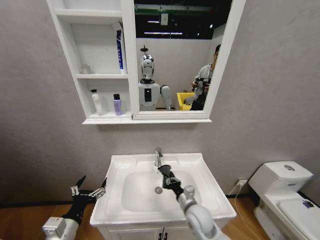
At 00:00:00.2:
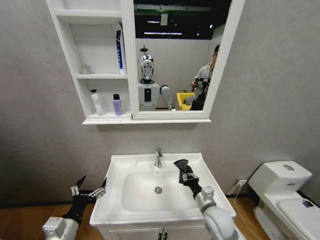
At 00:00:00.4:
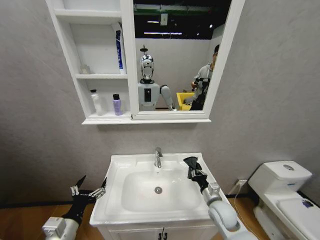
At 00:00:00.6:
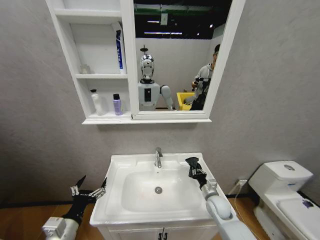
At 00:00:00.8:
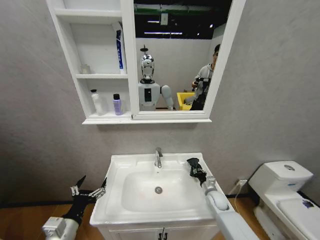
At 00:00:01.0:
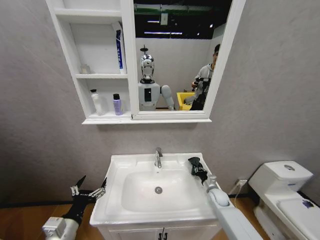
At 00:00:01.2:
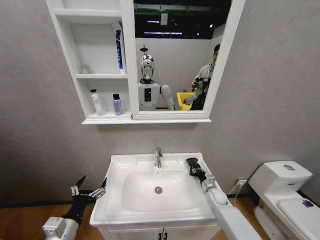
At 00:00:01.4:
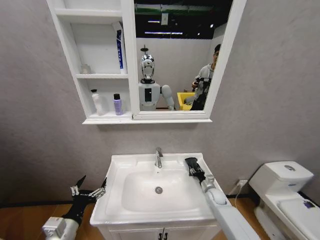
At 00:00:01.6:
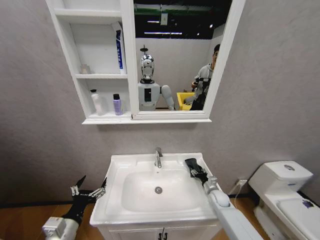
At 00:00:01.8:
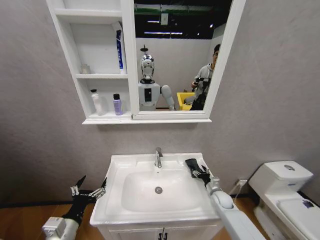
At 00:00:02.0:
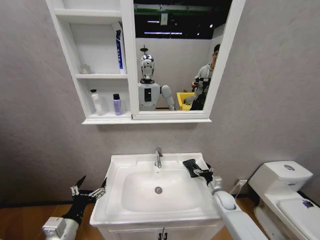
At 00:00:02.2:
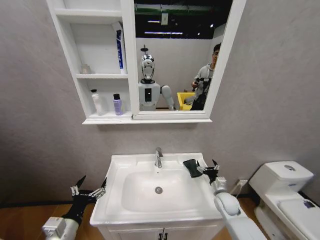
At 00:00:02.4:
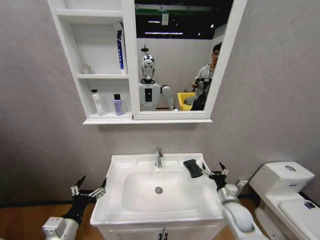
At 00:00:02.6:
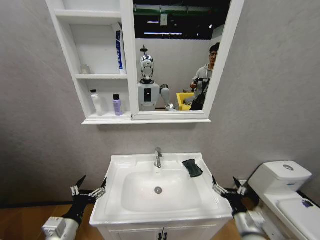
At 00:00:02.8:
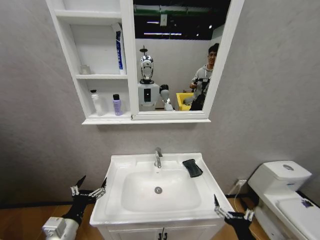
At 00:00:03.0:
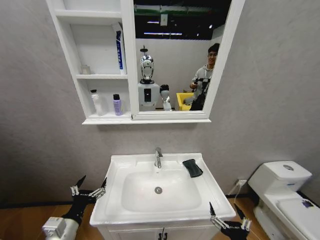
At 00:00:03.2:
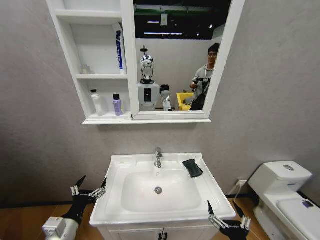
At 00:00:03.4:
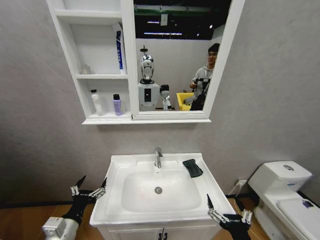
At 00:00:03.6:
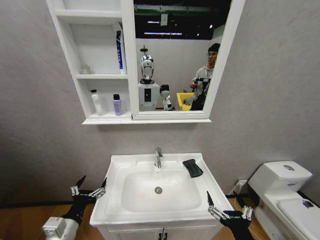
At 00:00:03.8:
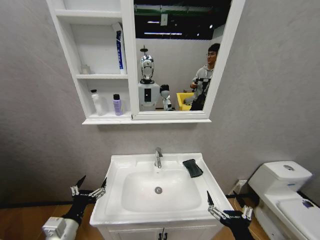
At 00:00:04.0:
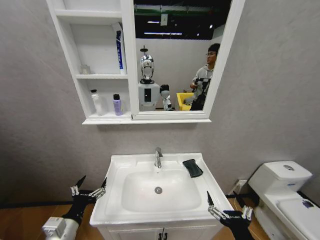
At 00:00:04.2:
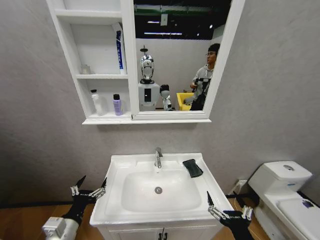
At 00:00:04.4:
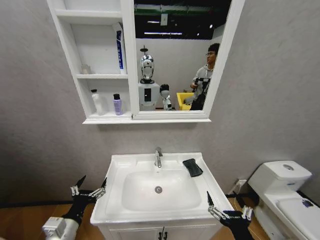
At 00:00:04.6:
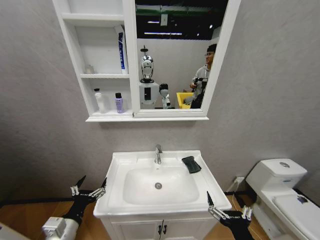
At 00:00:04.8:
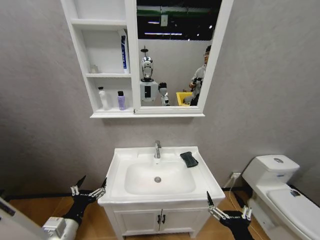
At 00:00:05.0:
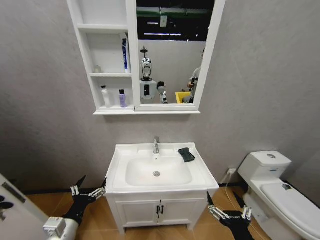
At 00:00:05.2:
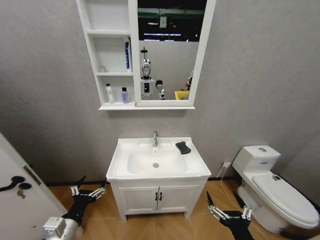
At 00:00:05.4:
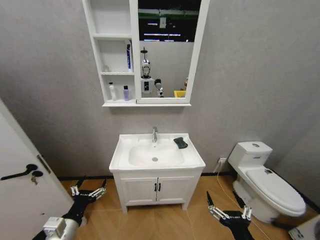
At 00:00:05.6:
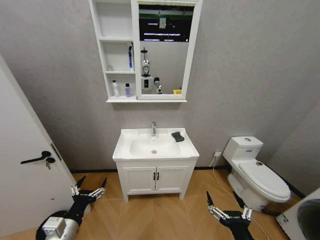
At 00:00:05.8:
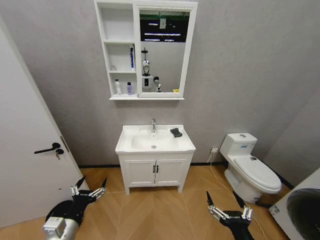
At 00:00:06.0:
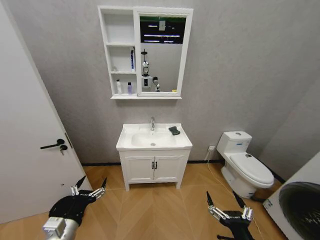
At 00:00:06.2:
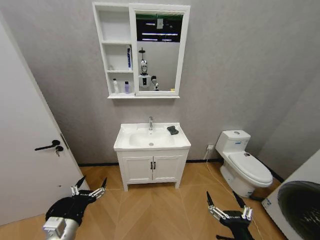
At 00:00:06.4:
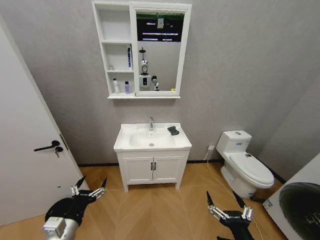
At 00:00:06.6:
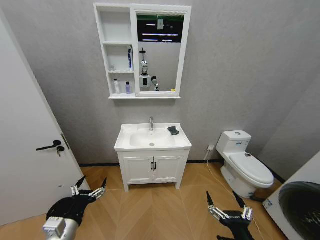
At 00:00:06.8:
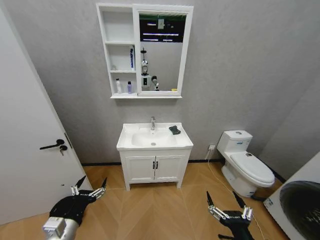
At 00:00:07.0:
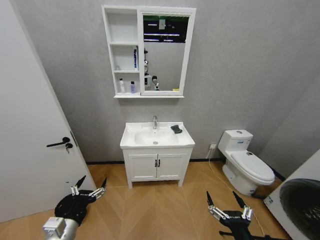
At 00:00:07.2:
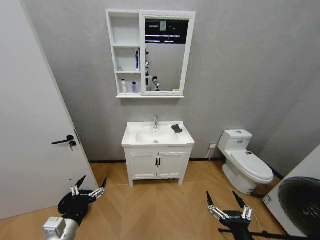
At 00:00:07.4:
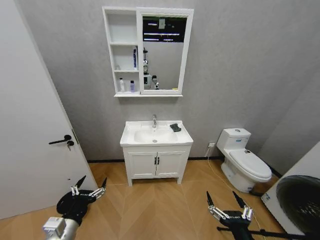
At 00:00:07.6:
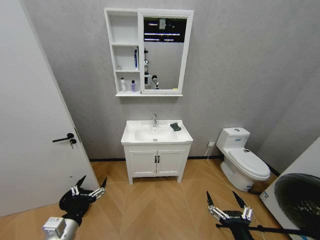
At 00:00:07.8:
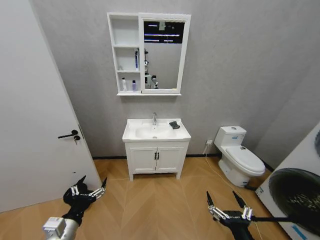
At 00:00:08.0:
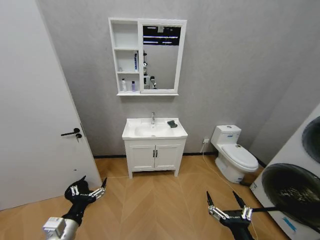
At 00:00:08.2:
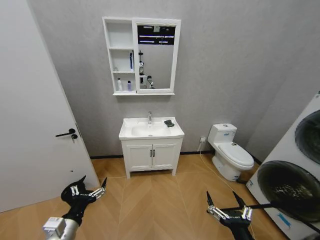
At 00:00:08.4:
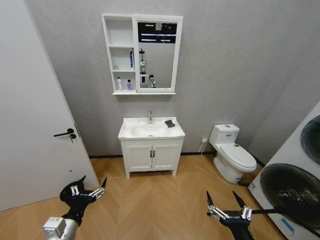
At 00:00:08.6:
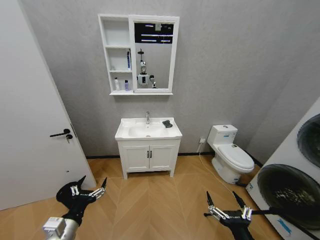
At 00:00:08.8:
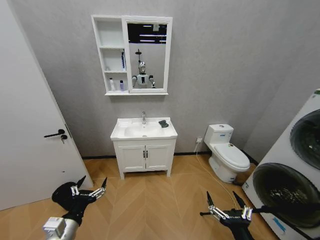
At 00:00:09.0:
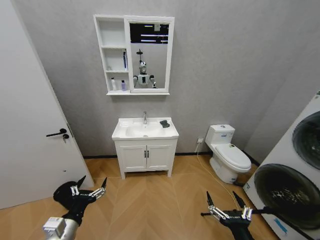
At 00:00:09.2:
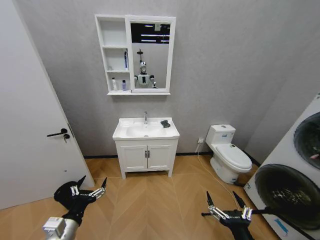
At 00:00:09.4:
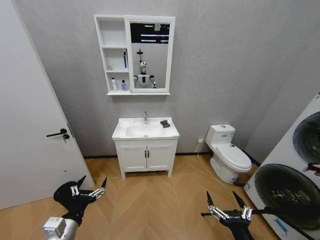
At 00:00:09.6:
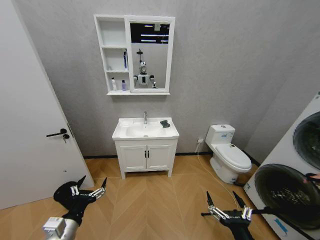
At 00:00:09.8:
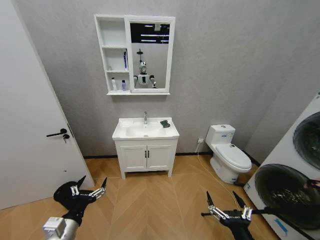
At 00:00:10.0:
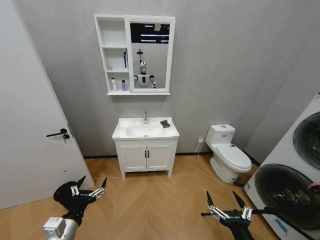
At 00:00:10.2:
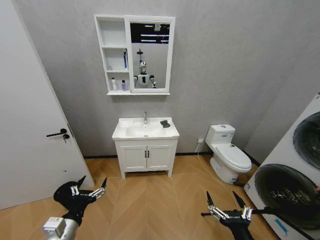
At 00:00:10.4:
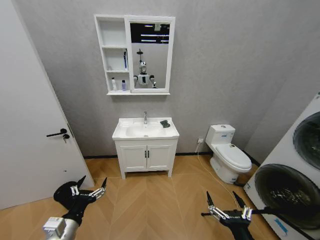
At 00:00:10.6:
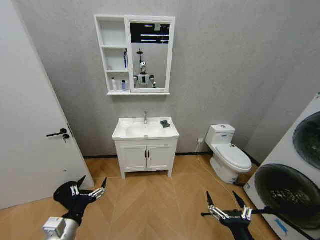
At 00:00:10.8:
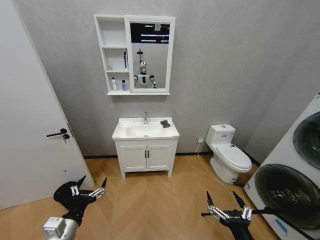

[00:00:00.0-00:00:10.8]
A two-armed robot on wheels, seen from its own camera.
Task of the whole recording: Move facial cleanser and shampoo from washbasin to cabinet, then wipe washbasin with towel.
00:00:00.0 to 00:00:01.6: The right gripper heads to the right, forward and downward, covering approximately 25 cm, and opens up.
00:00:01.6 to 00:00:03.0: The right gripper travels backward by some 35 cm, and opens up.
00:00:03.0 to 00:00:04.6: The right gripper shifts approximately 5 cm upward.
00:00:07.8 to 00:00:10.8: The two grippers keep their place.

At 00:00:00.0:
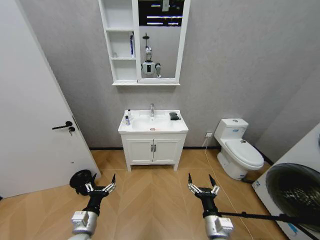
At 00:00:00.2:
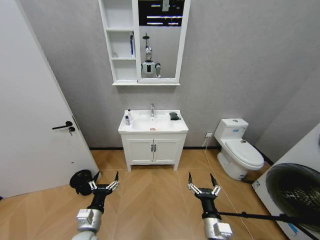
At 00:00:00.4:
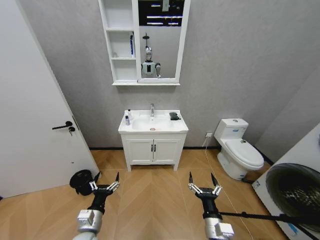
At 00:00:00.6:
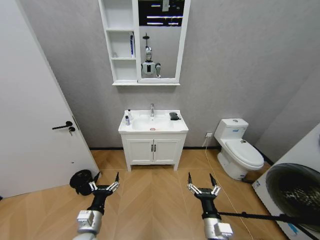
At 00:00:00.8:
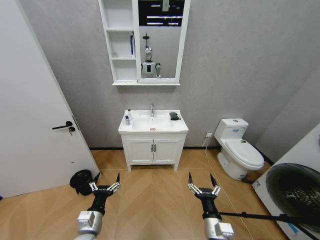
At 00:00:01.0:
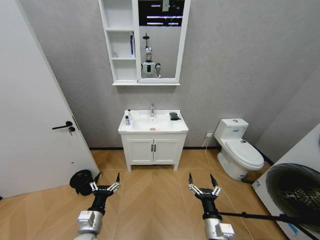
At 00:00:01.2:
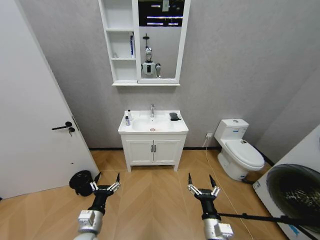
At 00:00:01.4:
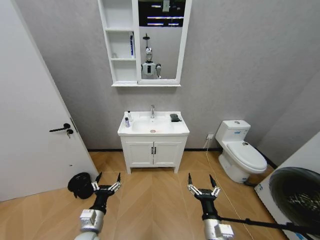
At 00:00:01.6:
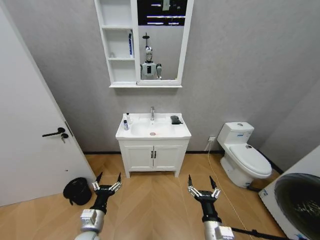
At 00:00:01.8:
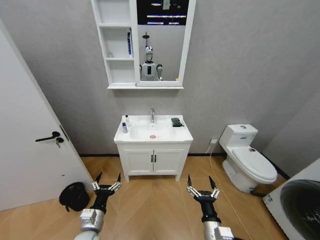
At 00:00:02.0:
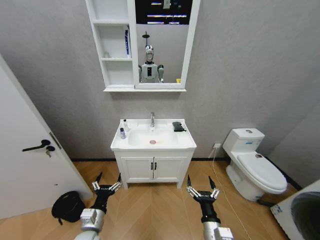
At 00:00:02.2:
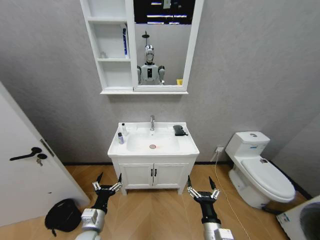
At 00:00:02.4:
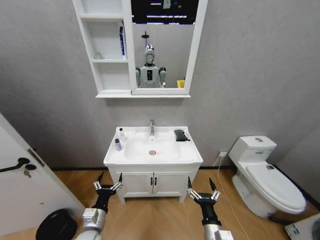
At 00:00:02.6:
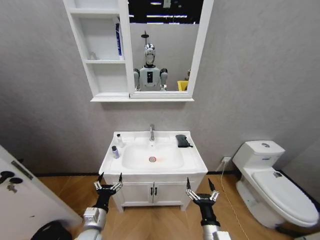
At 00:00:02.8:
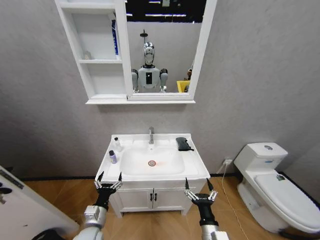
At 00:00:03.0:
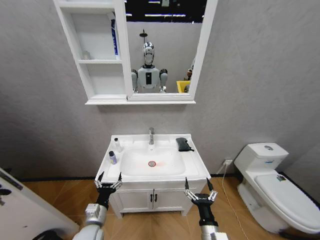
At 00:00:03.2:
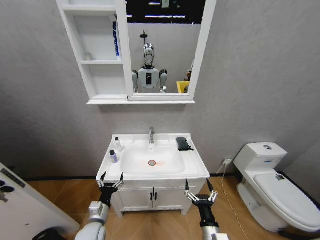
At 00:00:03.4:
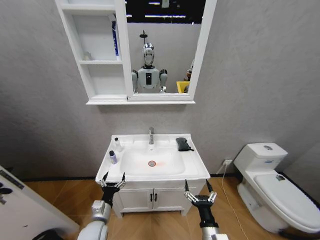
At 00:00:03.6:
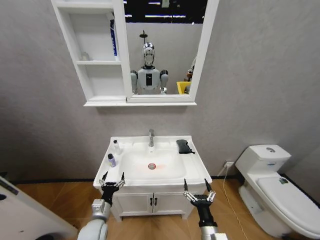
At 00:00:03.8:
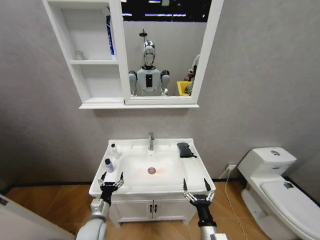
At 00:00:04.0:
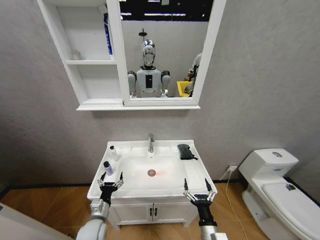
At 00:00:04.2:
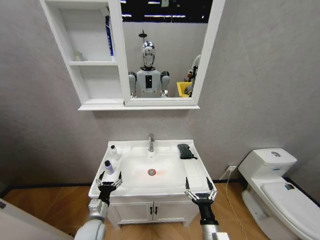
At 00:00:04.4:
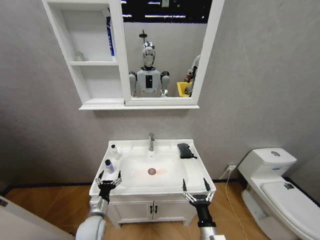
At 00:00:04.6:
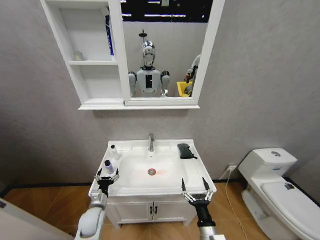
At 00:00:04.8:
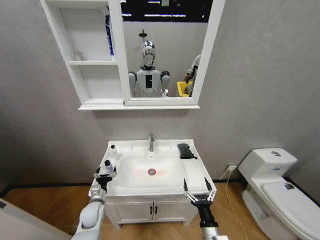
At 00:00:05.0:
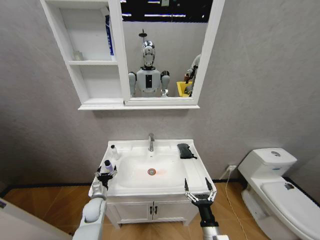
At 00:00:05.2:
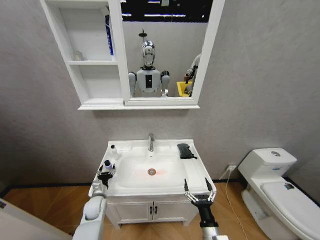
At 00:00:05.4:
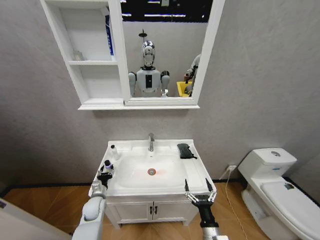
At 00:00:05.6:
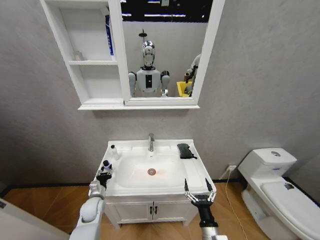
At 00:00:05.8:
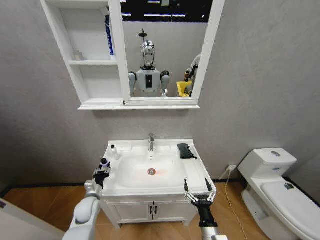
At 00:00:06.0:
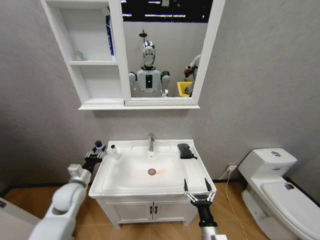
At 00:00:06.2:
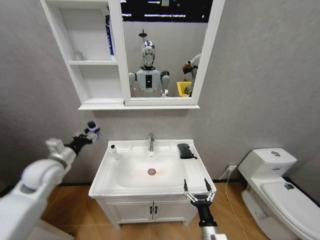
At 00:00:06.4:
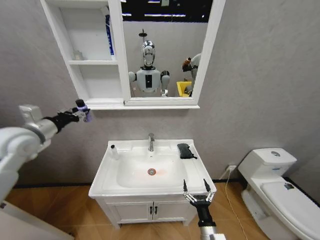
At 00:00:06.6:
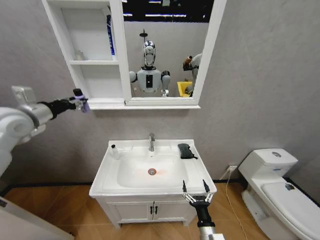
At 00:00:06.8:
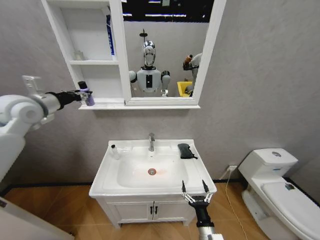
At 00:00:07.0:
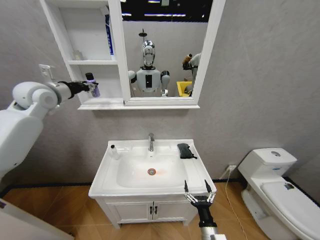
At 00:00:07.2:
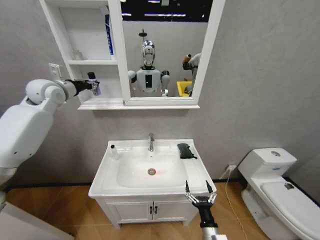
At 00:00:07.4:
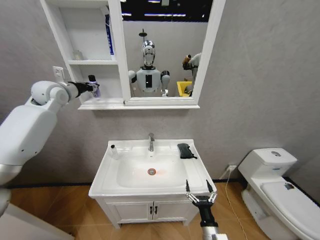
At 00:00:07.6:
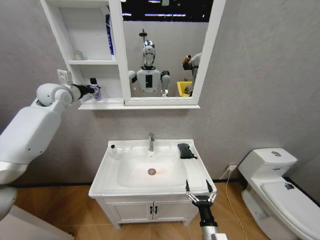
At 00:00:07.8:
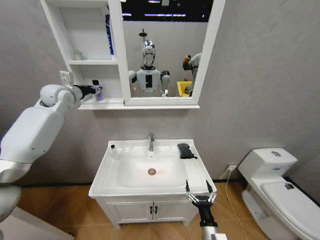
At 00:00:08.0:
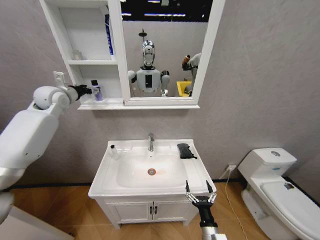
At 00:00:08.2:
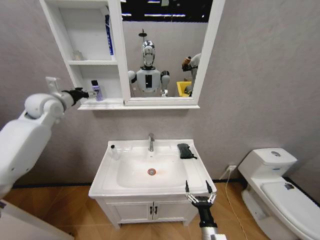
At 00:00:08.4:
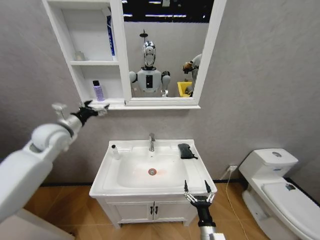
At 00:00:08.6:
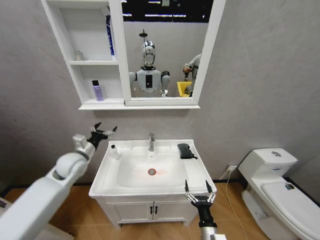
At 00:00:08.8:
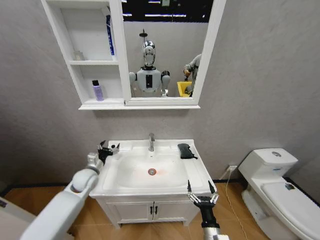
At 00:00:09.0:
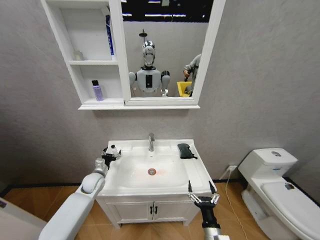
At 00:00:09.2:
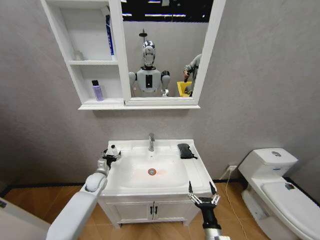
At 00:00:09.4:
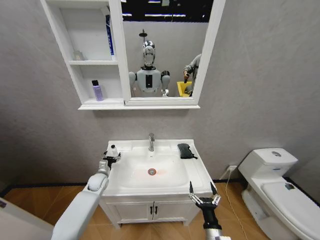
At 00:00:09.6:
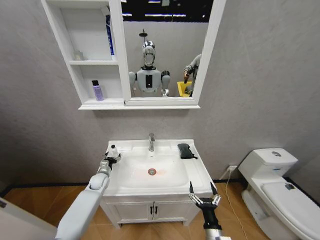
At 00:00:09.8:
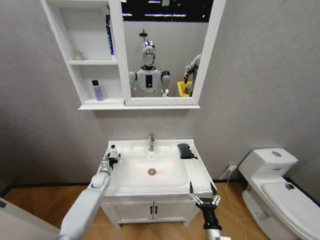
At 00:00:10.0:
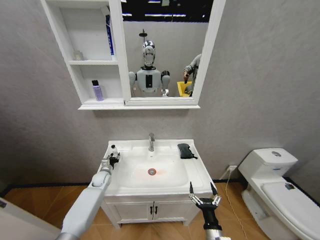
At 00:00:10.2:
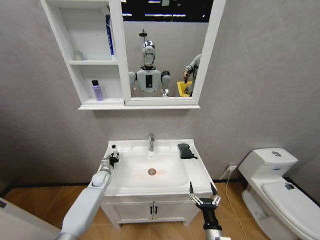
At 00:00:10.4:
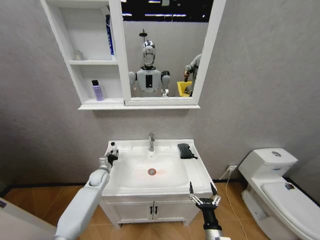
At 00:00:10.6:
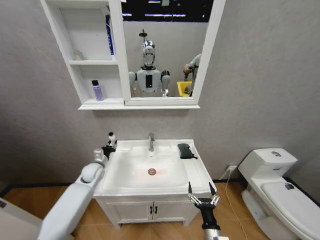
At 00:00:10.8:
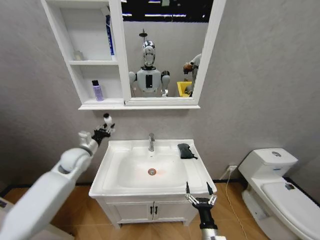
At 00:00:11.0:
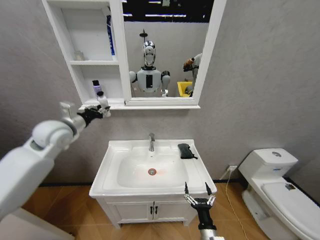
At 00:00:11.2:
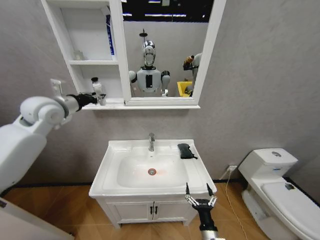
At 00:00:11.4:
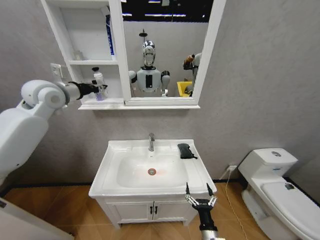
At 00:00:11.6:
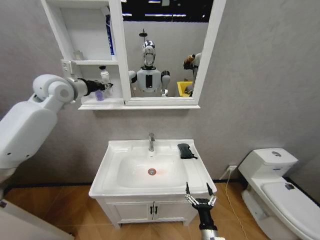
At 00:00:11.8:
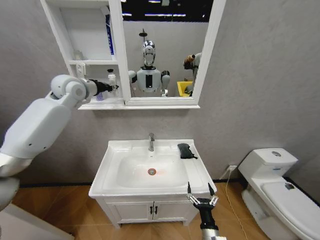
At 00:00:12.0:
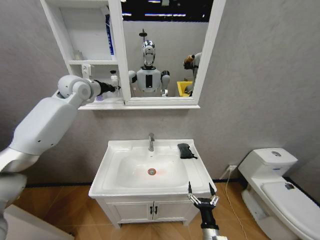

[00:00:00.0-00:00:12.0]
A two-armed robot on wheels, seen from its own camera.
Task of the whole recording: Move facial cleanser and shampoo from washbasin to cabinet, then wipe washbasin with towel.
00:00:04.4 to 00:00:06.0: The left gripper is displaced upward, to the left and forward by about 15 cm, and closes.
00:00:06.0 to 00:00:07.6: The left gripper goes roughly 40 cm upward and forward.
00:00:07.6 to 00:00:09.0: The left gripper travels downward by approximately 40 cm, and opens.
00:00:09.0 to 00:00:10.4: The left gripper closes up.
00:00:10.4 to 00:00:12.0: The left gripper is displaced upward by approximately 50 cm.
